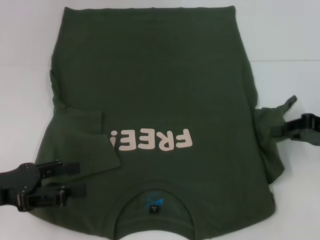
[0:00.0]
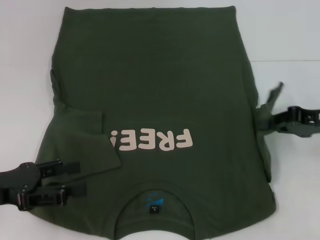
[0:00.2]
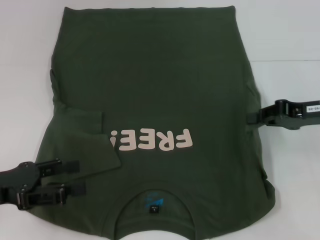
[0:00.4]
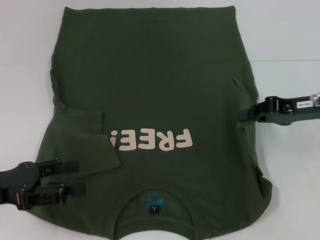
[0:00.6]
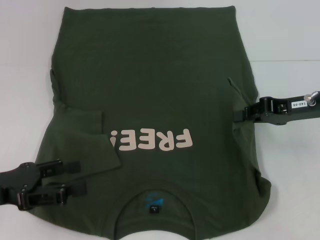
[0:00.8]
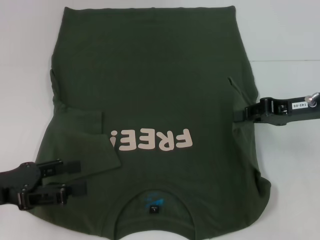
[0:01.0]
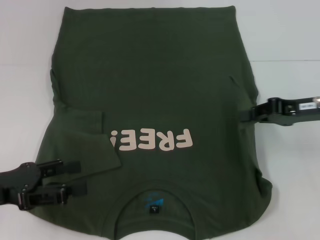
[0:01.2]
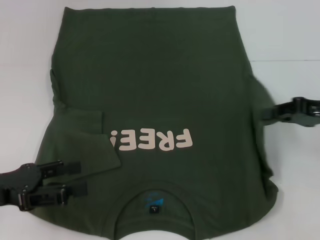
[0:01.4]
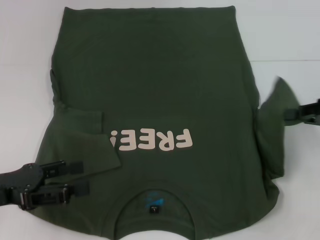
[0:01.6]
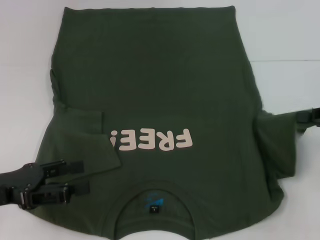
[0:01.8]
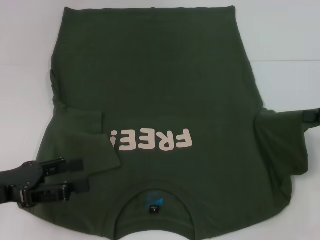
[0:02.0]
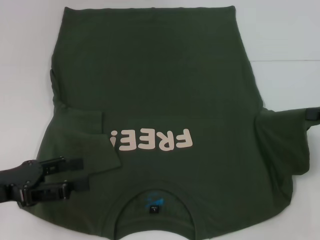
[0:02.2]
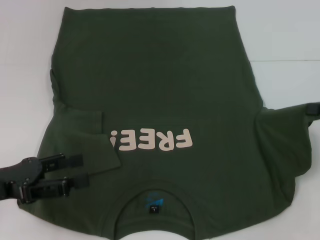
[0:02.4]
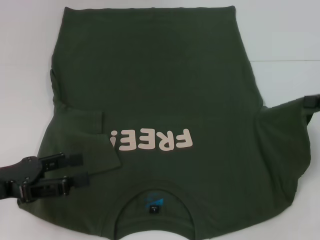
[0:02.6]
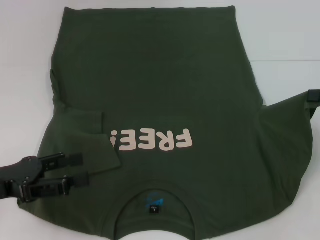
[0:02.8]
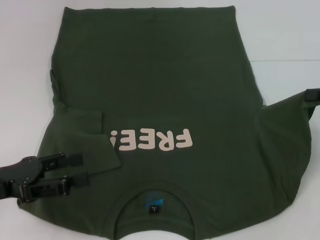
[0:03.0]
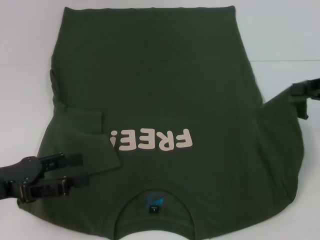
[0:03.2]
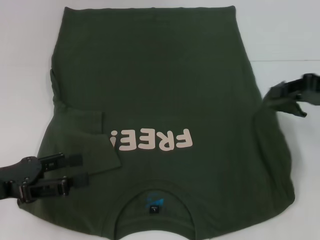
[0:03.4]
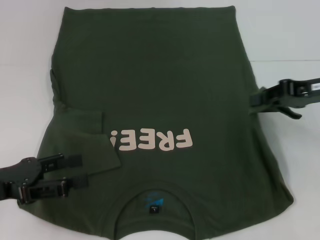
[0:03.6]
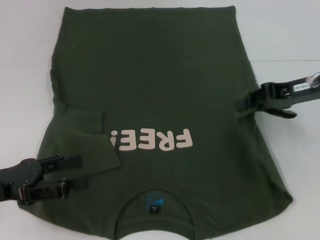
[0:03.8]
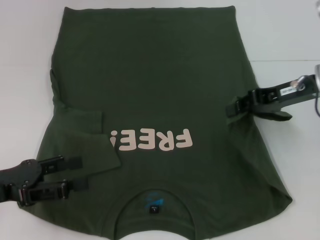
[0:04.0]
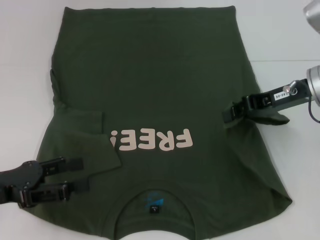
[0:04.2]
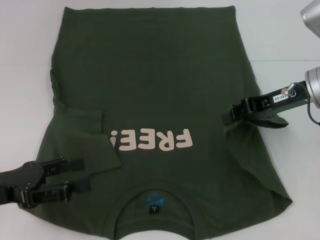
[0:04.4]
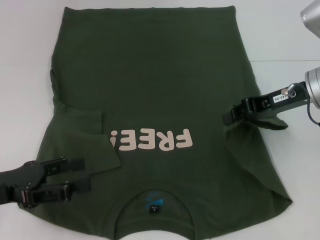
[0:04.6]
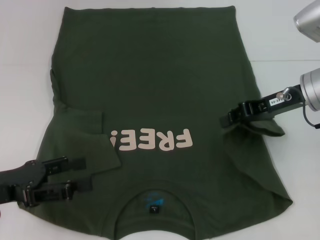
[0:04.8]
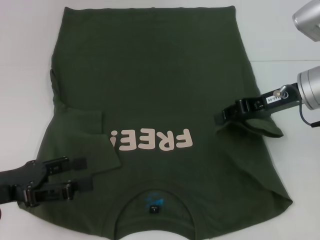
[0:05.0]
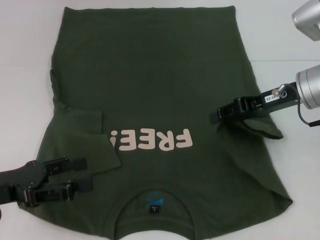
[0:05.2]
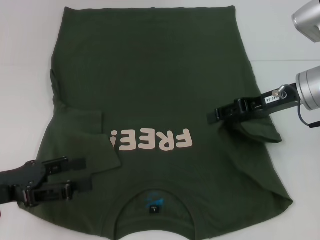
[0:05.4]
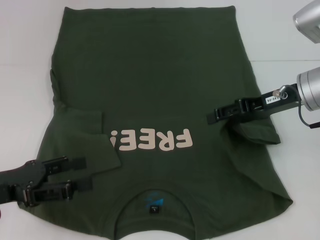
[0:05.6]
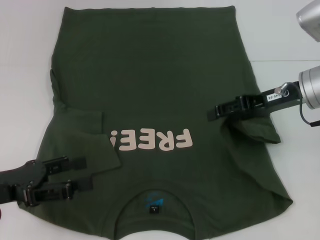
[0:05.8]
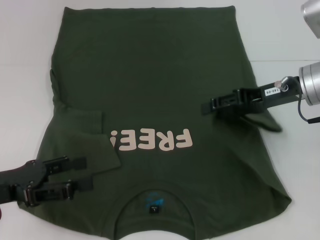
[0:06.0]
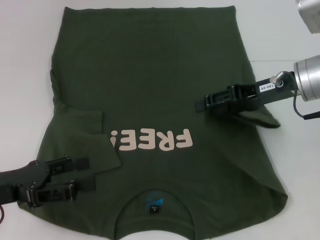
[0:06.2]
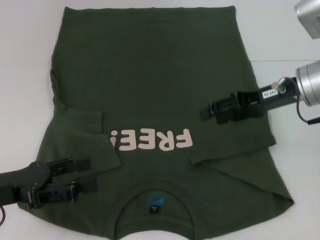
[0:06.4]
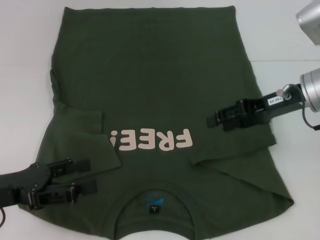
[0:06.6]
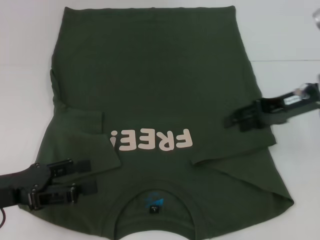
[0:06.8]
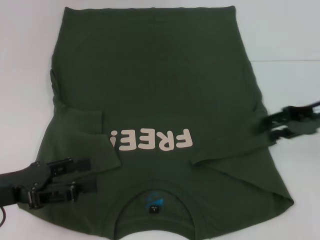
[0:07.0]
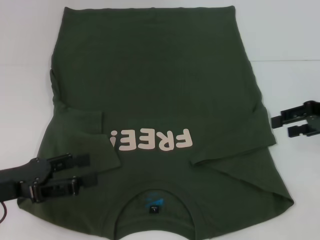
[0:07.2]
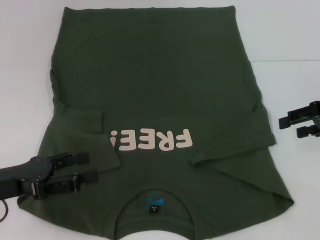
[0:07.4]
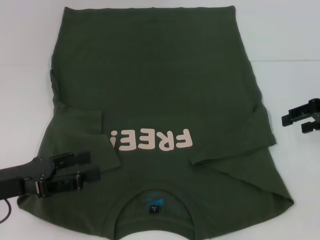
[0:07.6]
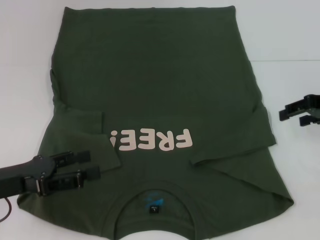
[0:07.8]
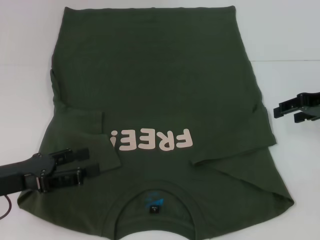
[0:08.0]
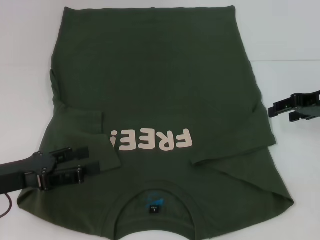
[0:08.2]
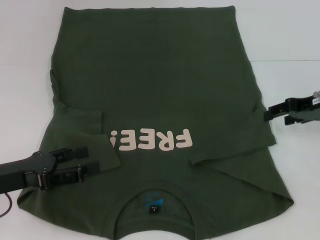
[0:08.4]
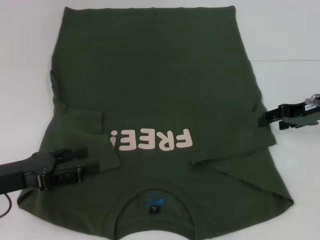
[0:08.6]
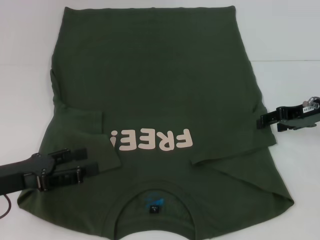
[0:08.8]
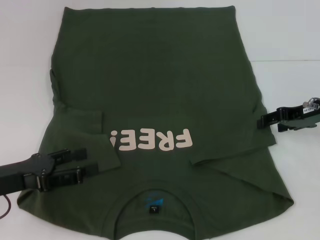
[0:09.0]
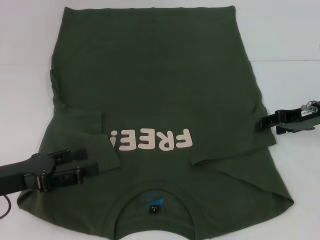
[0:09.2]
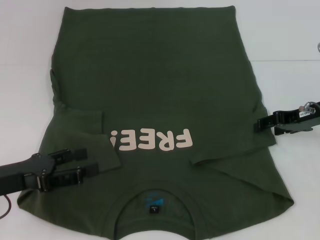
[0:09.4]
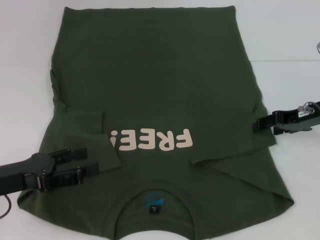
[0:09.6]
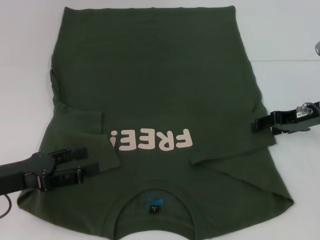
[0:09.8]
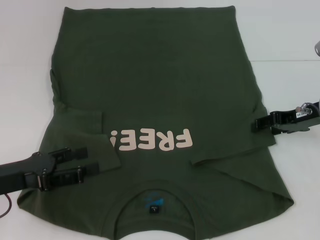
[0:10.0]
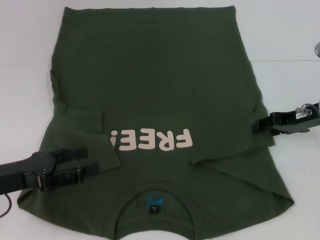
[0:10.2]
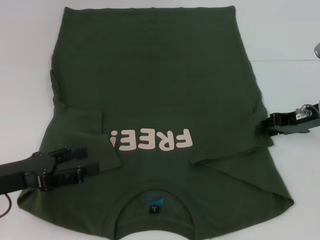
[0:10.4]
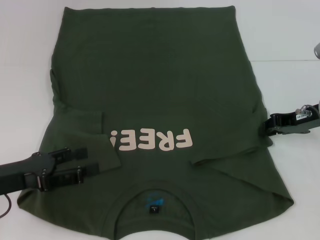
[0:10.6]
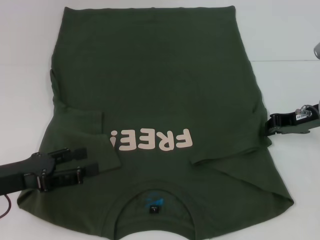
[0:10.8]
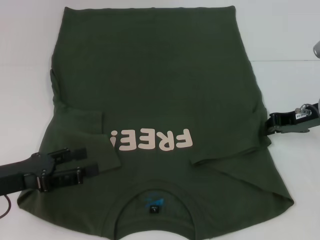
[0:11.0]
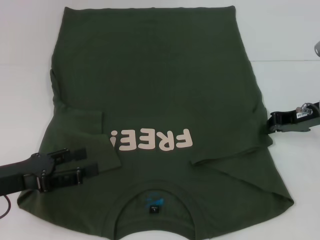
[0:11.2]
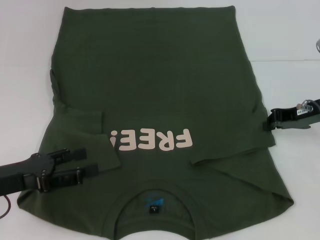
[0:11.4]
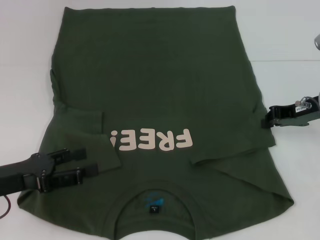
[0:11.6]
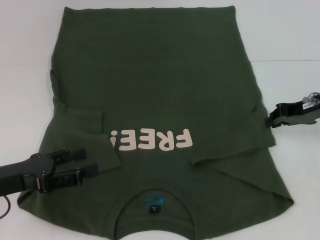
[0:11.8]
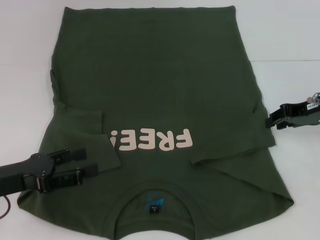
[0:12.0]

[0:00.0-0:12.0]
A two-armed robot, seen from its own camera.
0:01.6 to 0:03.0: The grippers move only a little.
0:03.0 to 0:04.4: The right gripper shifts roughly 15 cm to the left and forward.
0:04.4 to 0:06.0: The right gripper opens its fingers.
0:06.0 to 0:07.6: The right gripper is displaced to the right by some 10 cm.
0:07.6 to 0:09.0: The right gripper moves about 5 cm.
0:09.0 to 0:10.4: The grippers make only small movements.
0:10.4 to 0:12.0: The right gripper closes.

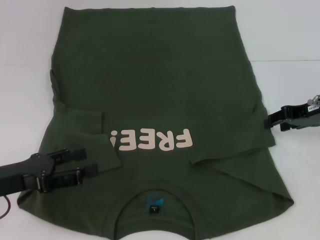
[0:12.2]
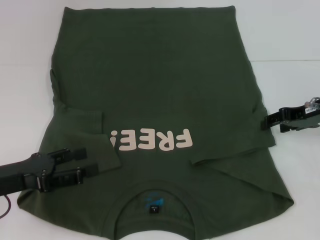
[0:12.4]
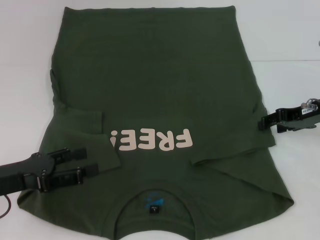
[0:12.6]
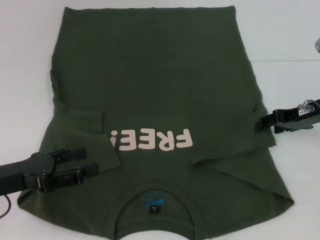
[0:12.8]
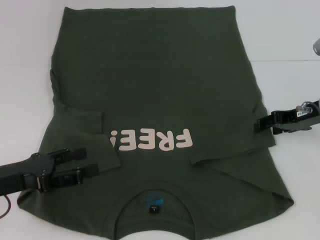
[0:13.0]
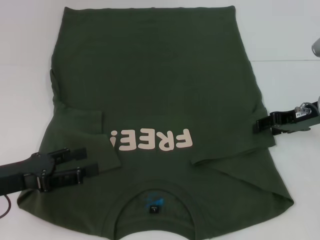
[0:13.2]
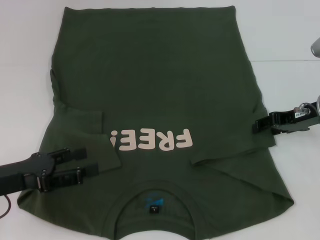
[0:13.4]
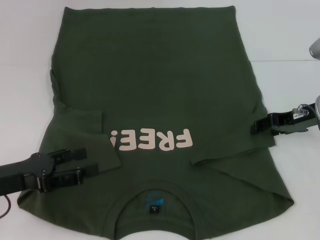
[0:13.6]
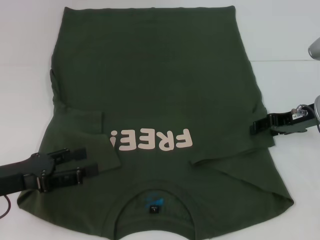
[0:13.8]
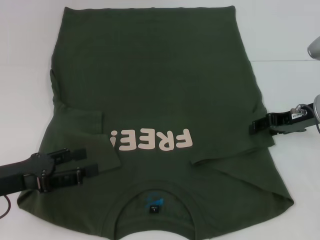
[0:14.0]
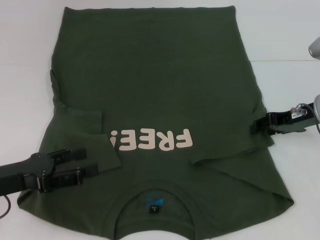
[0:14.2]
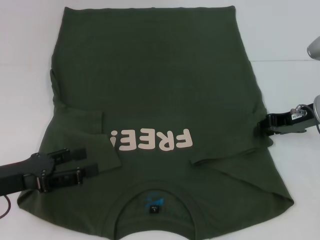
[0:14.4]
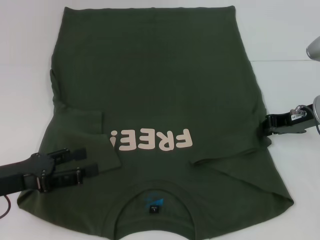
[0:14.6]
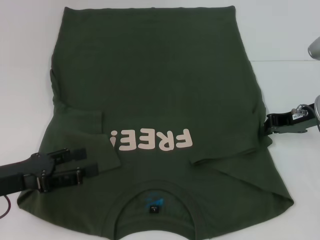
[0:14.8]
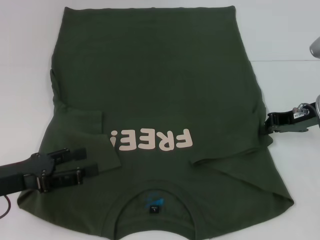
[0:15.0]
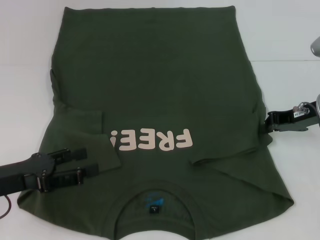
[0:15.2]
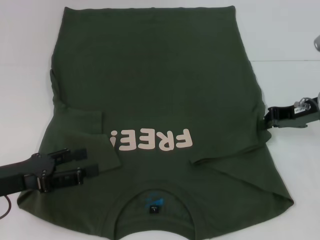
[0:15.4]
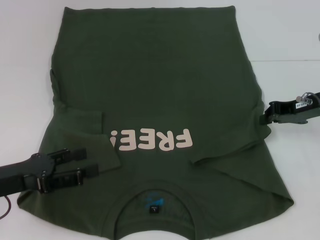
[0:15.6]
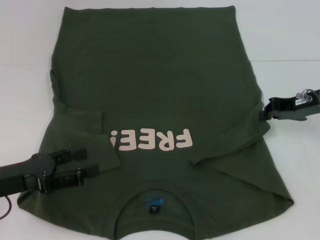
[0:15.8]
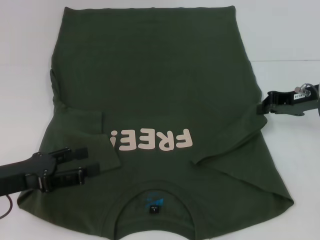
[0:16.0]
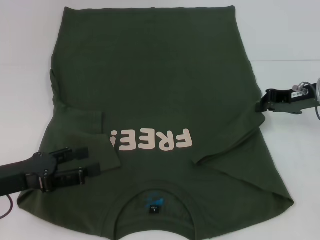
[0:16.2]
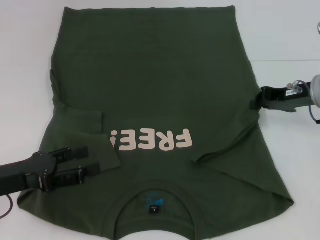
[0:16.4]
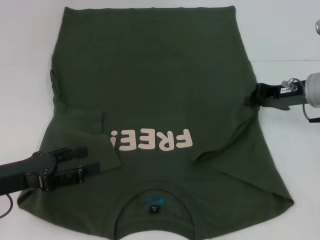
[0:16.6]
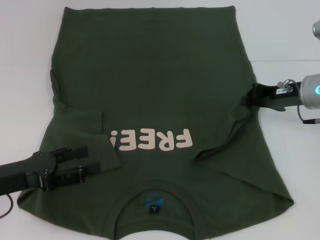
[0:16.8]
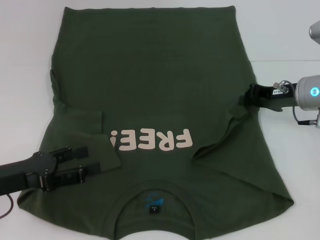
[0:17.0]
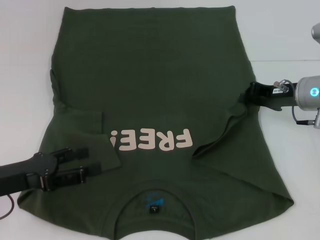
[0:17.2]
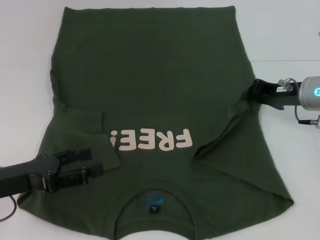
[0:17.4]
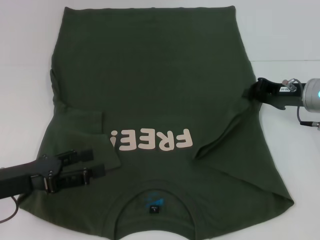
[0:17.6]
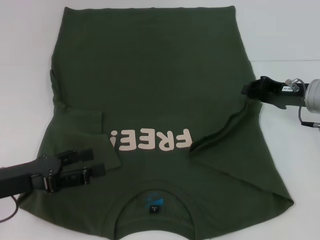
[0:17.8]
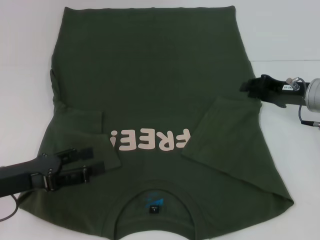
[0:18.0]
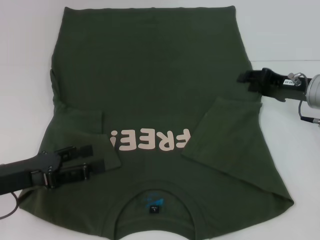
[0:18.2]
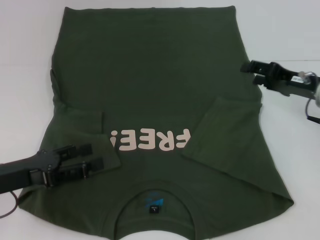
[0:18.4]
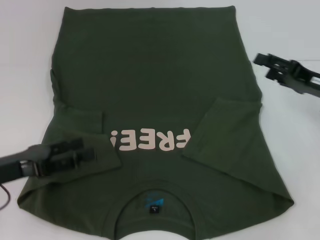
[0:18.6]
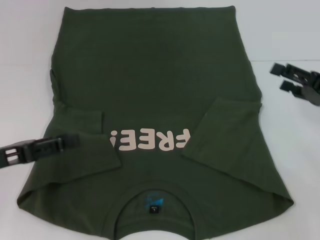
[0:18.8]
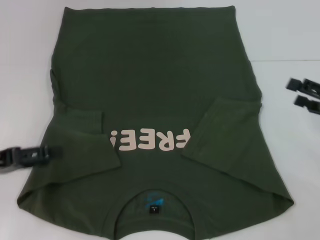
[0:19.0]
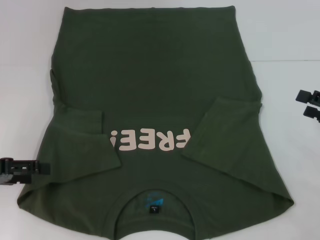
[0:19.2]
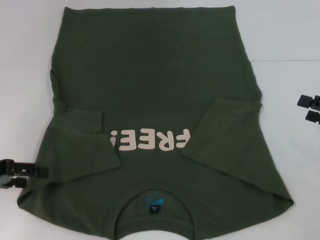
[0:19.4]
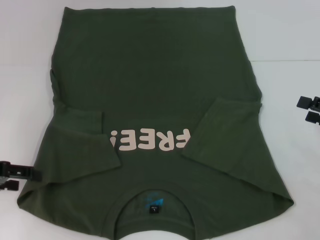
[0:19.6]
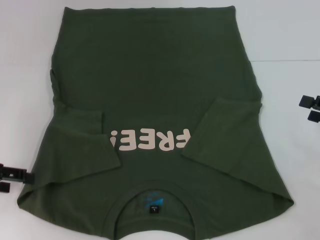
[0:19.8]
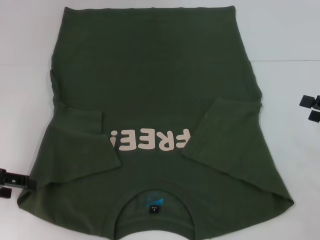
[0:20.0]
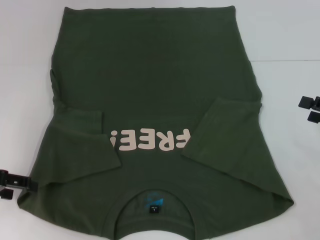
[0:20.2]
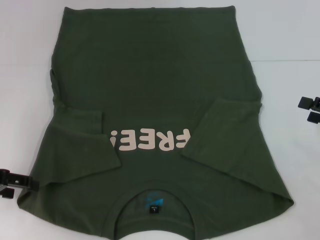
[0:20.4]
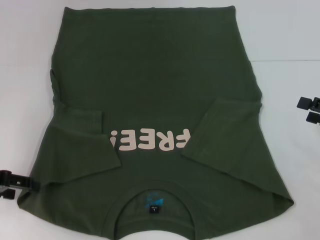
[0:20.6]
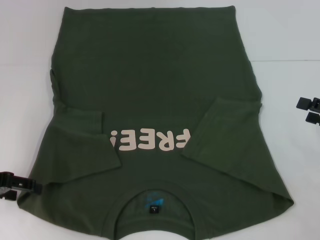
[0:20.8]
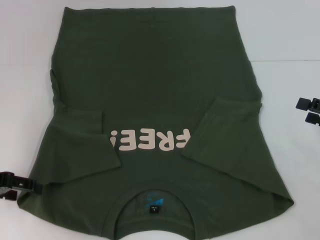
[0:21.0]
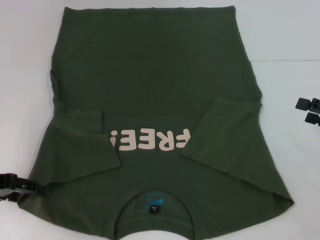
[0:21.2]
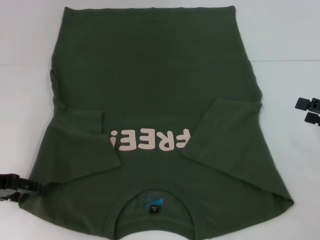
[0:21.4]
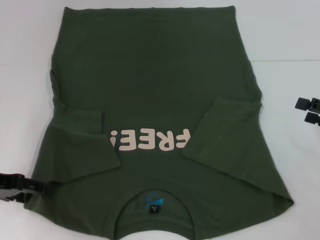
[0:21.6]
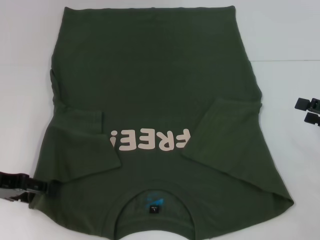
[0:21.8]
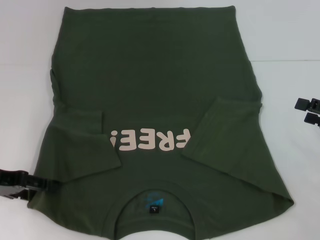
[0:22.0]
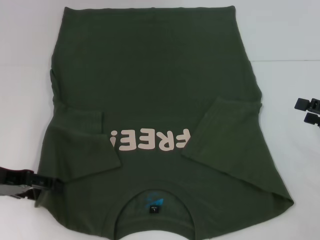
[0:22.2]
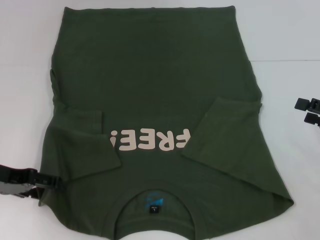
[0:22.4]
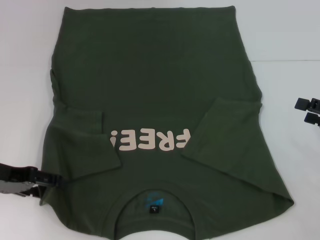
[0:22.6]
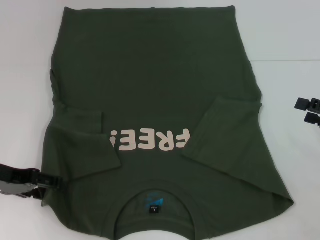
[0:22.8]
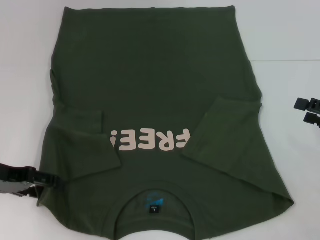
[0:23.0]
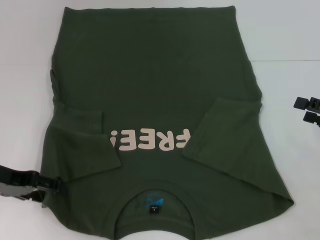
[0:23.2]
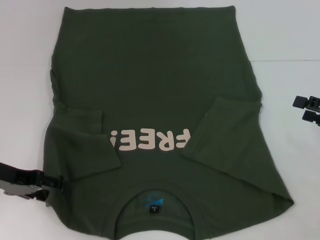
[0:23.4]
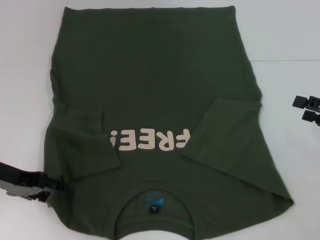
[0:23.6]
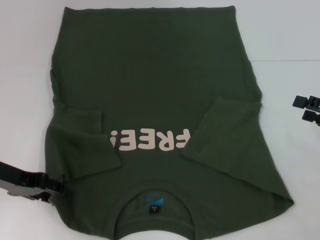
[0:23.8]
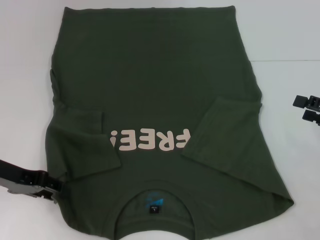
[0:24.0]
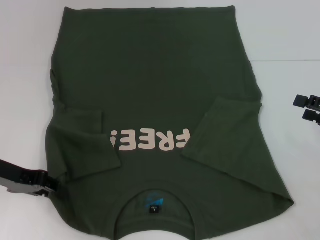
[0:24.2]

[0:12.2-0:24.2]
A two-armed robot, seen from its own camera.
Step, 0:12.2 to 0:17.8: Fold the bottom right sleeve with your right hand.
0:12.2 to 0:13.8: There are only small adjustments of the grippers.
0:13.8 to 0:15.2: The right gripper closes up.
0:15.2 to 0:16.6: The grippers make only small movements.
0:16.6 to 0:18.2: The right gripper opens.
0:18.2 to 0:19.8: The left gripper shifts about 5 cm to the left. Meanwhile the right gripper goes some 15 cm to the right and backward, and opens its fingers.
0:19.8 to 0:22.6: The grippers stay close to where they were, moving slightly.
0:22.6 to 0:24.2: The left gripper closes its fingers.
